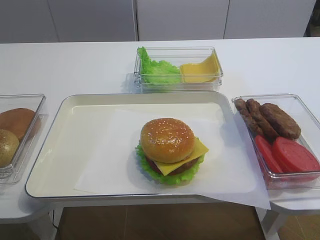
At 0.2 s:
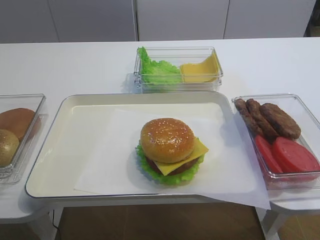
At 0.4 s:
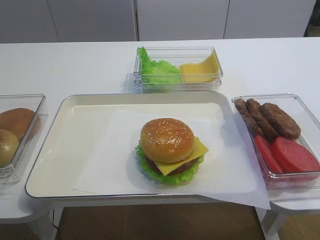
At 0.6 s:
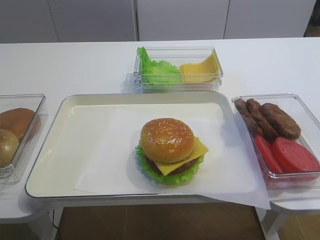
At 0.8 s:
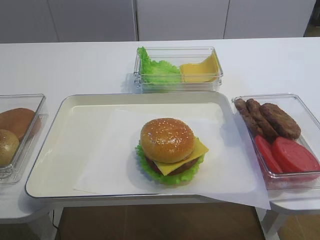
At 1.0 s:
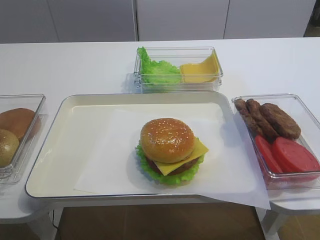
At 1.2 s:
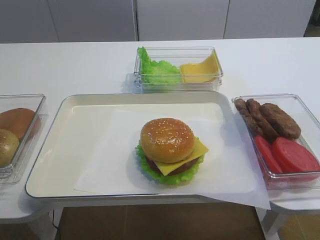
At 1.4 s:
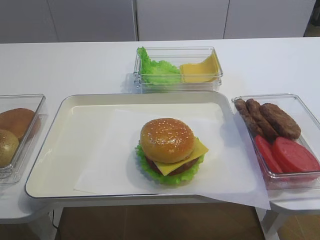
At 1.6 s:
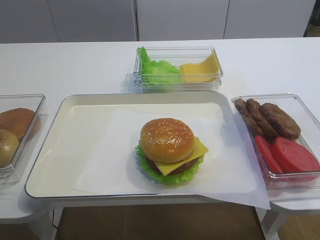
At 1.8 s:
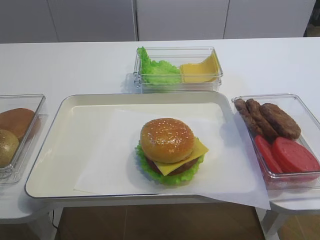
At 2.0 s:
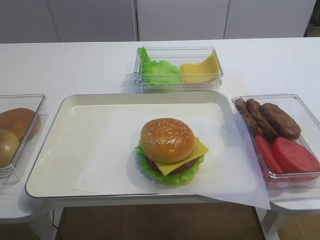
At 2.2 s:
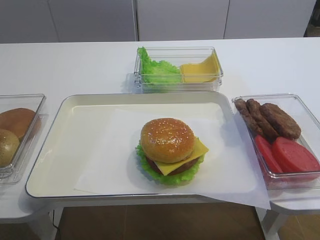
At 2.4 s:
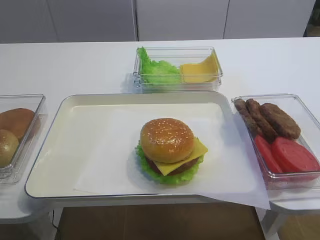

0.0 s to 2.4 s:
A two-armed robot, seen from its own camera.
1.2 to 2.4 s: The two grippers keep their place.

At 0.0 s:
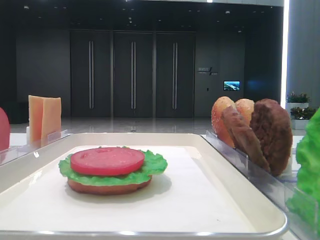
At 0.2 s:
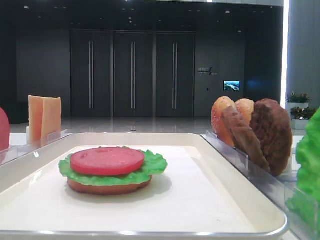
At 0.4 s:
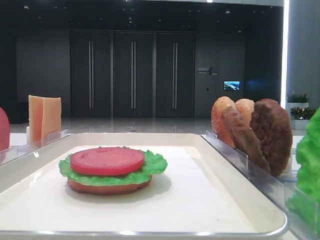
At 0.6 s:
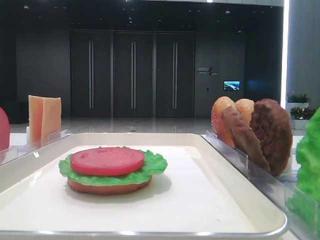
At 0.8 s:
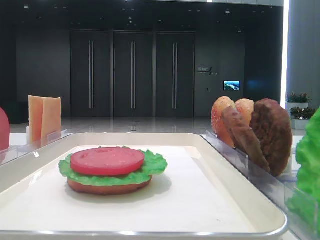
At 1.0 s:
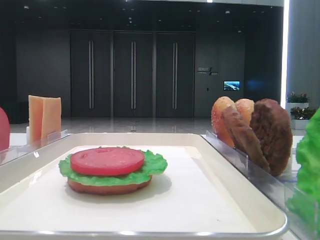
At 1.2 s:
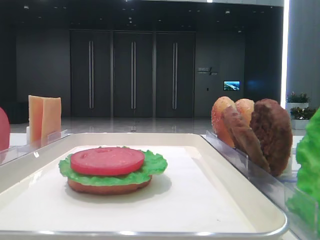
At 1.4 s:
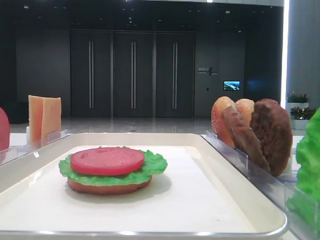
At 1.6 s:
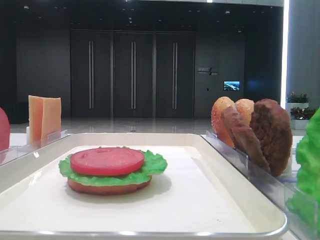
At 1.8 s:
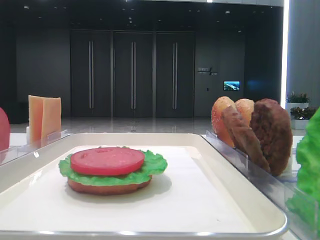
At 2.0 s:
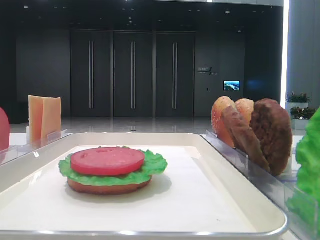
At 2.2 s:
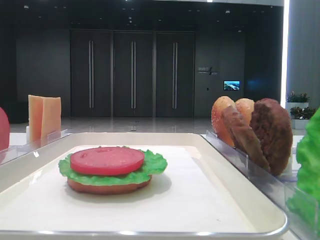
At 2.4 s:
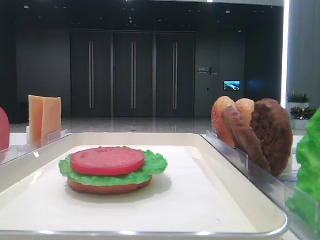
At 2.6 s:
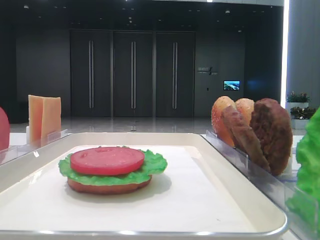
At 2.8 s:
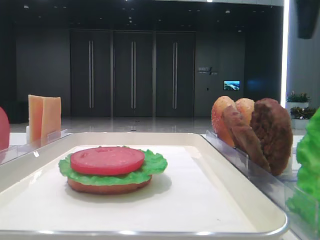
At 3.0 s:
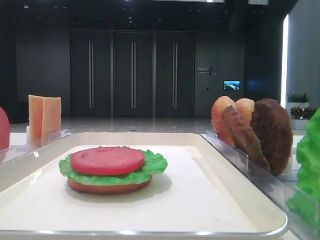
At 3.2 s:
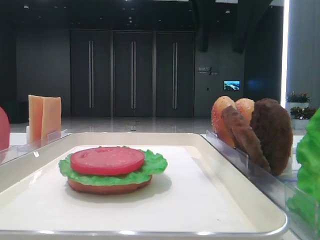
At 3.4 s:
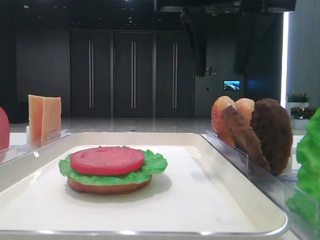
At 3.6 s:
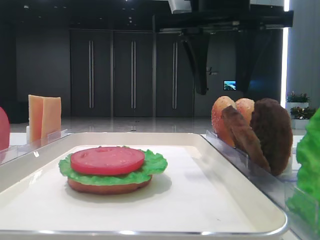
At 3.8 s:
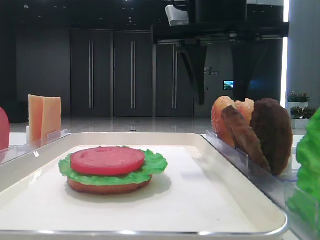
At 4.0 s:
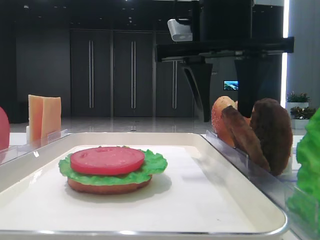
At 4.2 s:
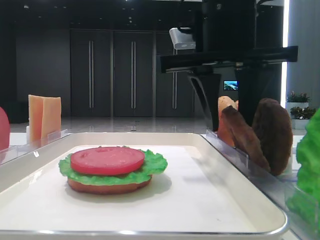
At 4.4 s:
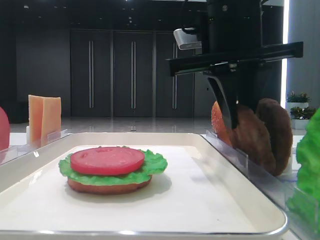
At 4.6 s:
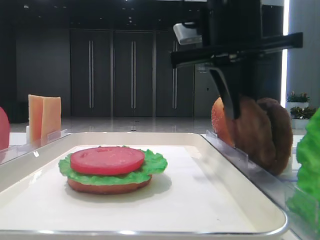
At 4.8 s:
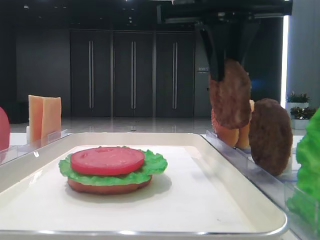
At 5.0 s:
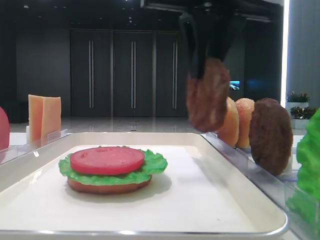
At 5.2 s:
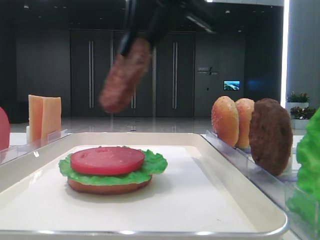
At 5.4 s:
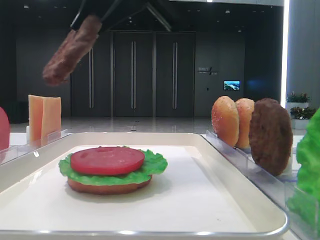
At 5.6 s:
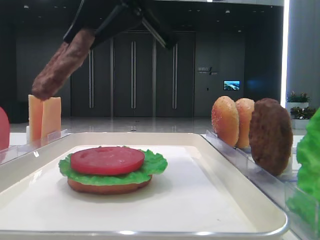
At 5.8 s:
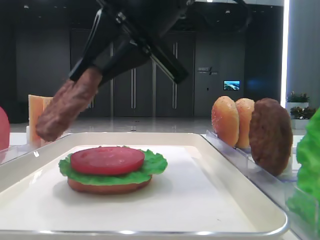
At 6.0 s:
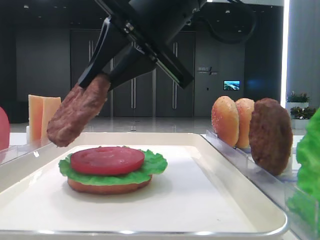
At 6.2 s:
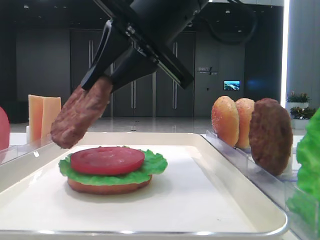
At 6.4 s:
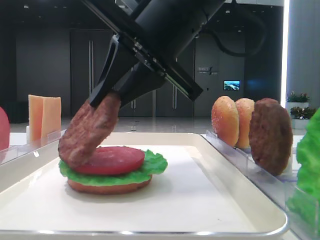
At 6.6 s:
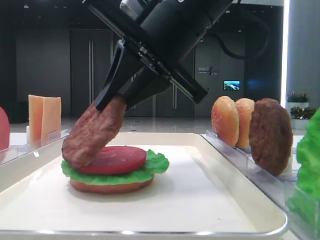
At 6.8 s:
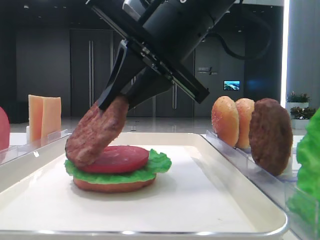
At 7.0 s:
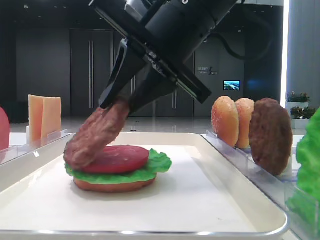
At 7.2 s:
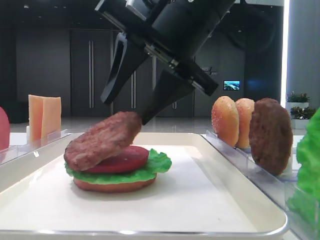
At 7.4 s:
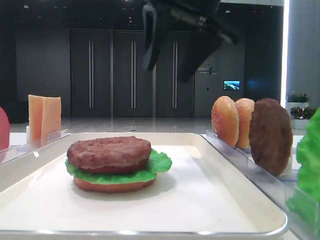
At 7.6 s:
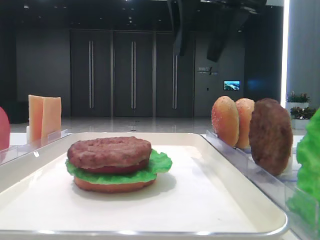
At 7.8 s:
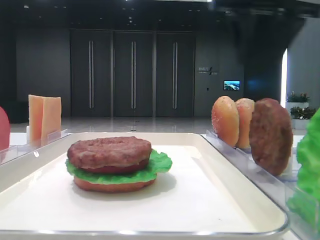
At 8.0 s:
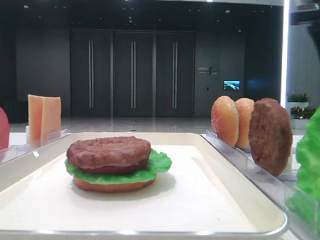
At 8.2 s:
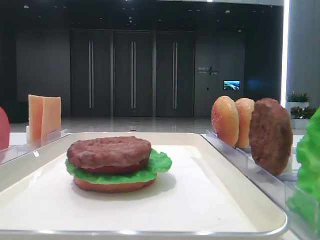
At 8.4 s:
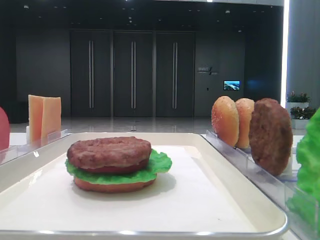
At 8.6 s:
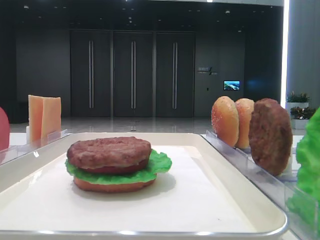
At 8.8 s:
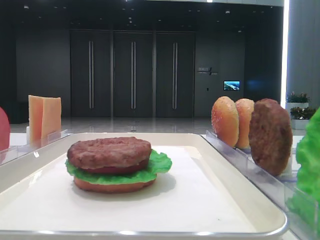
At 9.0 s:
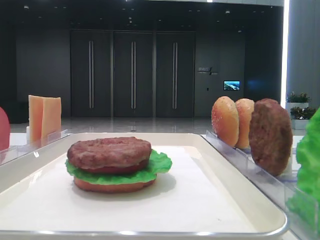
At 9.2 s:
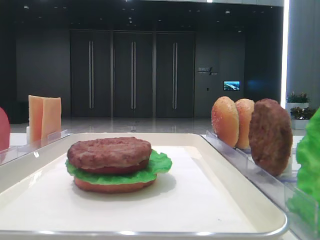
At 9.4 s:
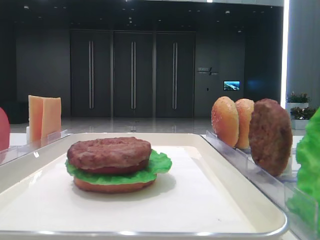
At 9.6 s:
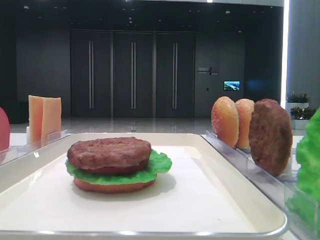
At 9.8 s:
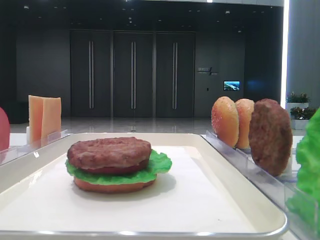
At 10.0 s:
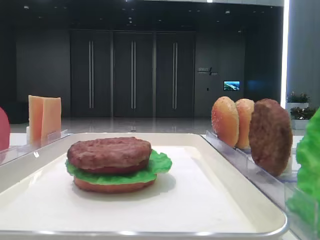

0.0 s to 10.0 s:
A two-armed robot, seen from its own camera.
Step, 0.0 to 4.4 s: Grab the patty with the right hand.
Step, 4.8 to 7.2 s: Place the patty on the tomato slice with the right hand.
1.4 to 2.8 s: The right gripper moves forward, some 30 cm.
2.8 to 4.2 s: The right gripper heads to the left and downward, covering about 15 cm.
4.2 to 5.8 s: The right gripper moves to the left, about 5 cm, travels upward and back again, roughly 10 cm each way, and closes up.
5.8 to 7.2 s: The right gripper opens its fingers.
7.2 to 8.6 s: The right gripper heads to the right, covering about 30 cm.

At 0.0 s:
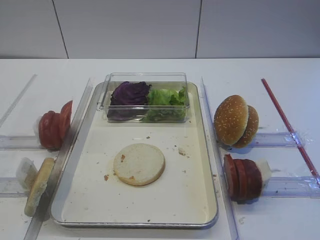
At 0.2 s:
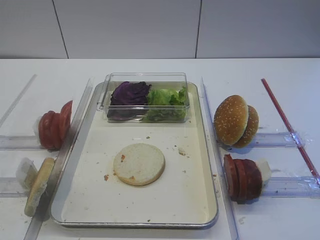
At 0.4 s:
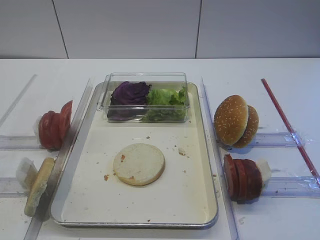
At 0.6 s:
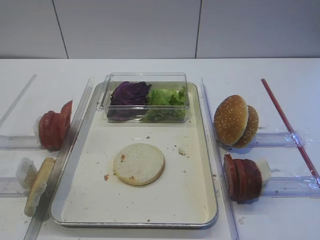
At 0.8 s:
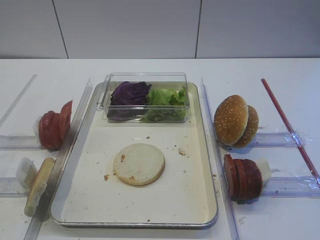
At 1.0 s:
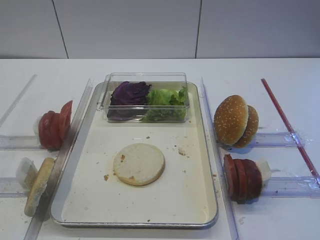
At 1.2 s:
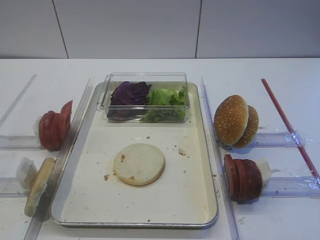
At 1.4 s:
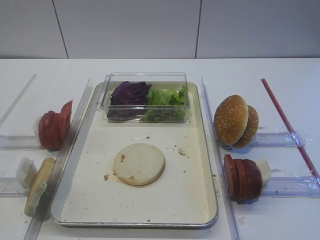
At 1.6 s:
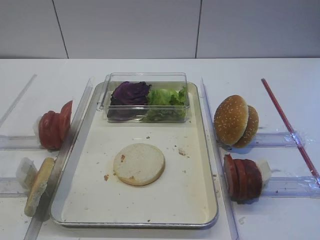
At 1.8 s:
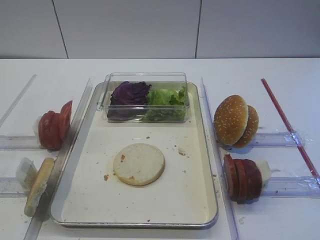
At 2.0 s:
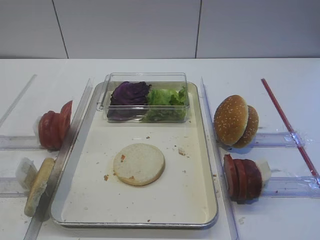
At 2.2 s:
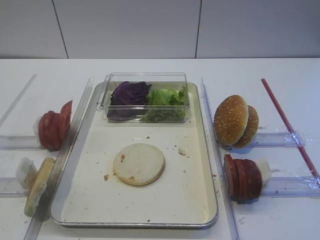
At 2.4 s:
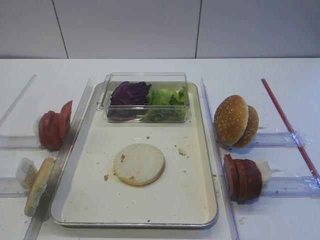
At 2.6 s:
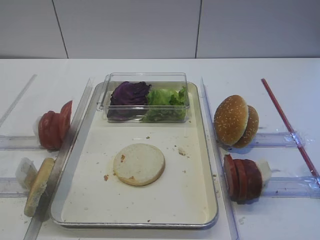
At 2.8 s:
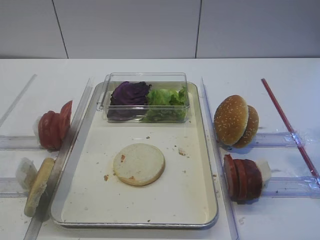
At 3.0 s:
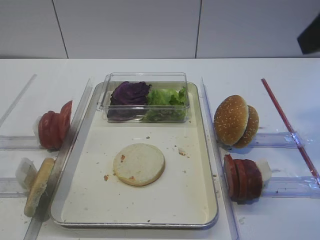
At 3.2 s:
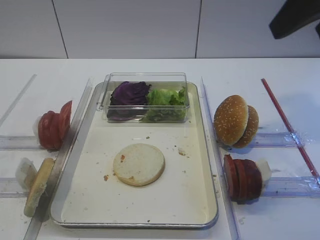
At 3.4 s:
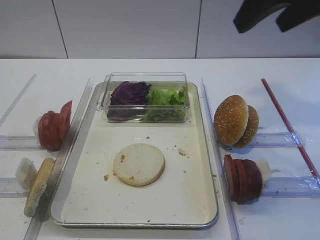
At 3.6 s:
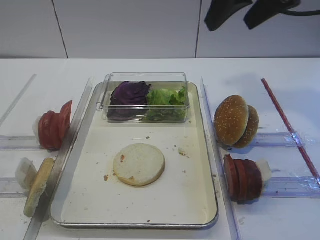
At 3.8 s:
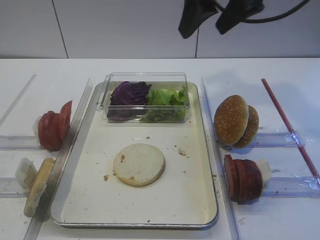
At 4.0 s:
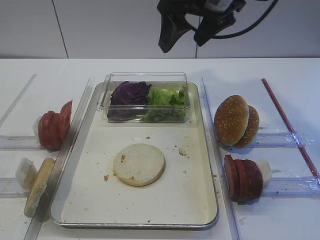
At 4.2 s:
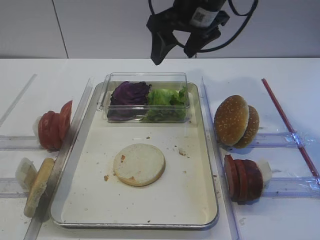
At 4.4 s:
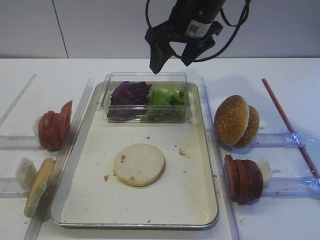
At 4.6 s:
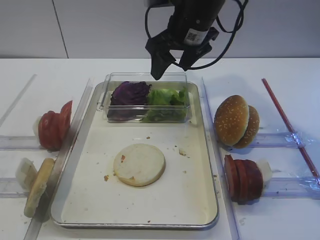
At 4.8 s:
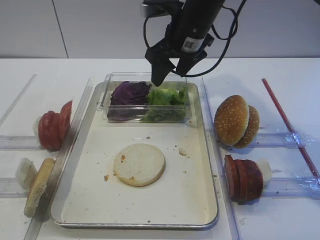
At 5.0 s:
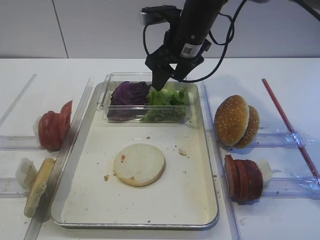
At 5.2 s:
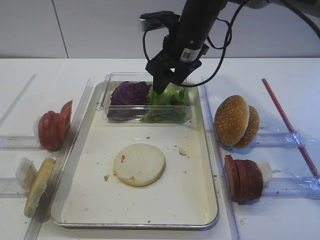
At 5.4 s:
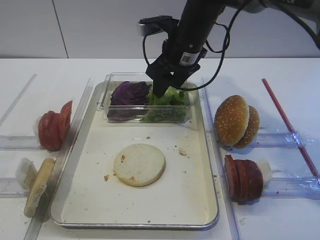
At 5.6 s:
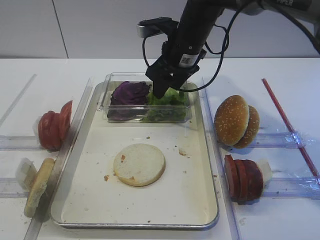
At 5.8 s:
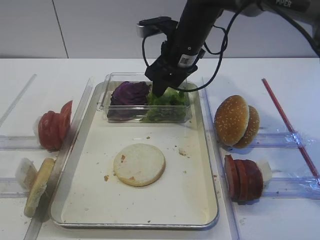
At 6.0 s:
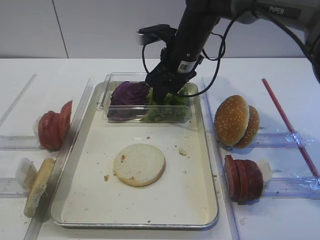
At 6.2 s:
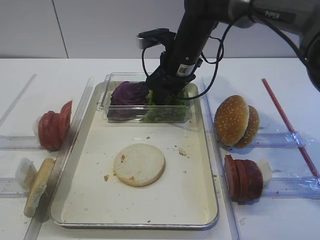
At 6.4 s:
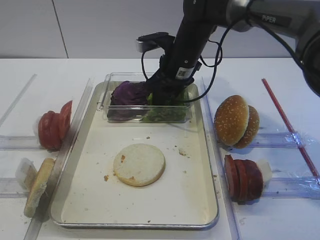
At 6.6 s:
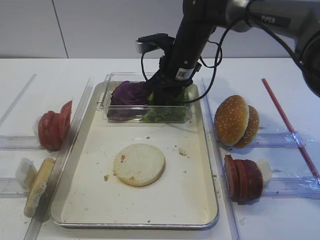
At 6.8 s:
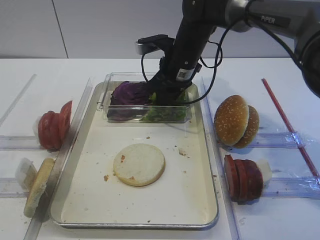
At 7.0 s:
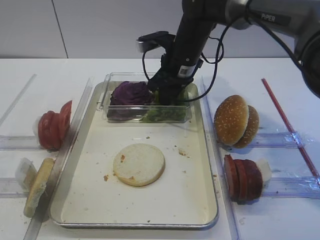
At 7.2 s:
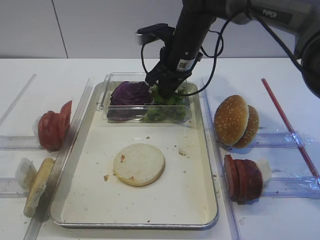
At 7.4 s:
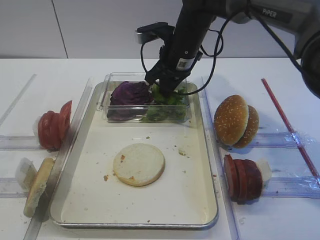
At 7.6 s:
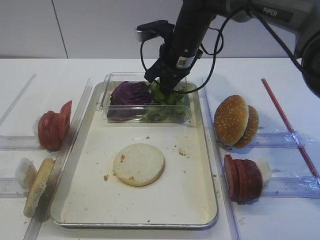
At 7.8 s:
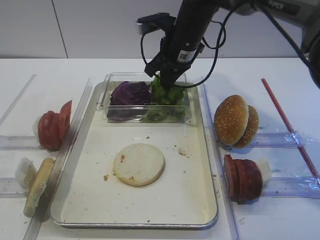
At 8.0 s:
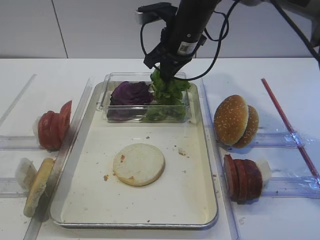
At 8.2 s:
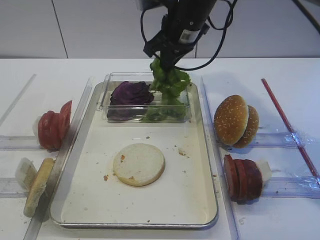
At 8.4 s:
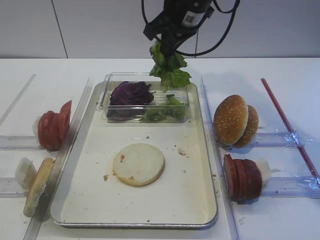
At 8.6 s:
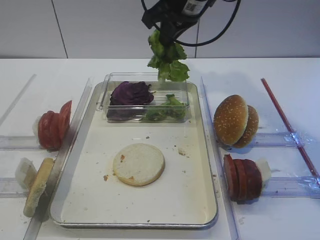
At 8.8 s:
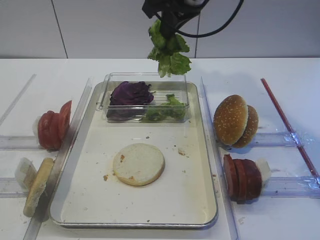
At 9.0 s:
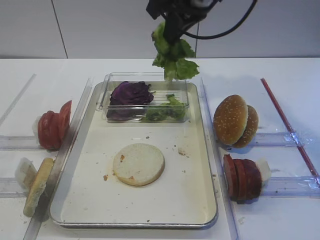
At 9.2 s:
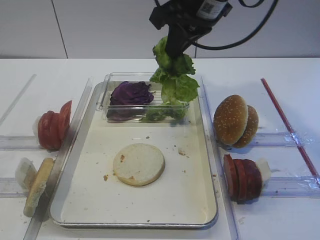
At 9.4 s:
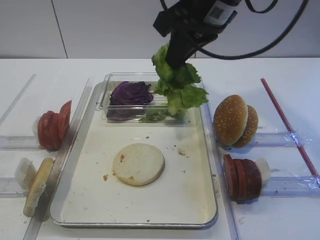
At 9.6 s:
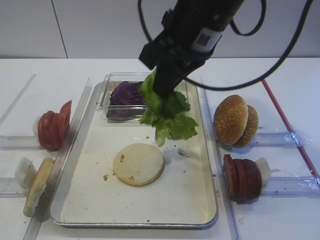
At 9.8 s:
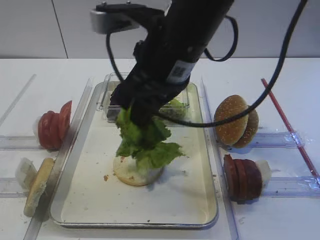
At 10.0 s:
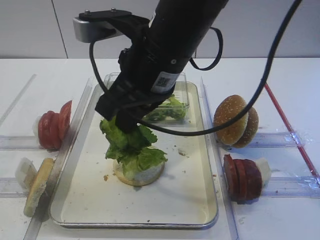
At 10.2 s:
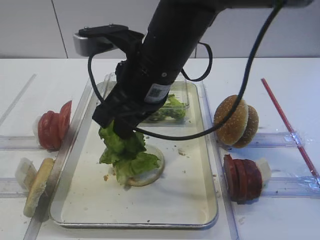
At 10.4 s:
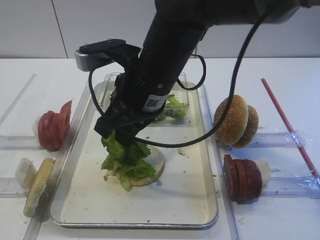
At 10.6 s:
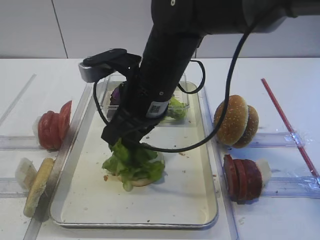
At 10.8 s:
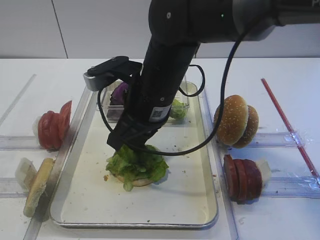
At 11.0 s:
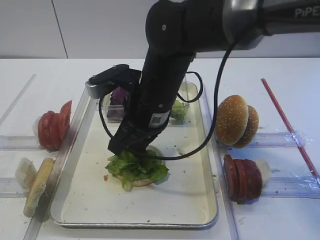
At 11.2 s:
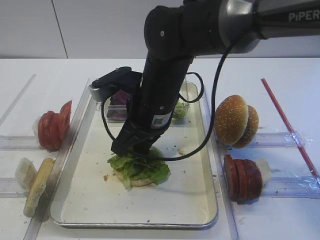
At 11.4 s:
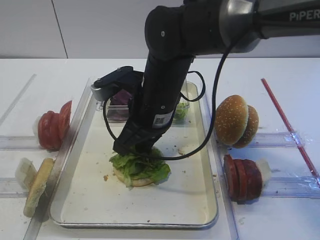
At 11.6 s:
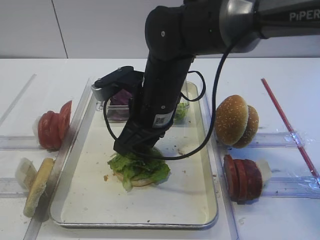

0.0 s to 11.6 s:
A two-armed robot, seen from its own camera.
Step, 0.0 to 8.6 s: Pick up the lettuce leaf with the right gripper.
2.8 to 4.4 s: The right gripper heads forward and to the left, covering about 30 cm; the left gripper opens up.
4.4 to 5.8 s: The right gripper goes some 5 cm downward.
5.8 to 7.2 s: The right gripper closes its fingers.
7.2 to 8.8 s: The right gripper heads upward, covering about 15 cm.
8.8 to 10.2 s: The right gripper heads backward, to the left and downward, covering roughly 15 cm.
10.2 to 11.6 s: The right gripper moves downward, about 10 cm.
